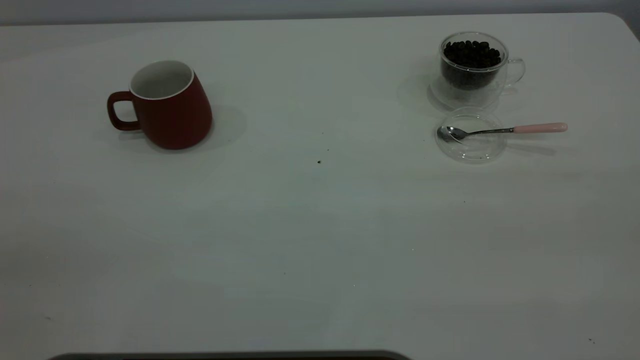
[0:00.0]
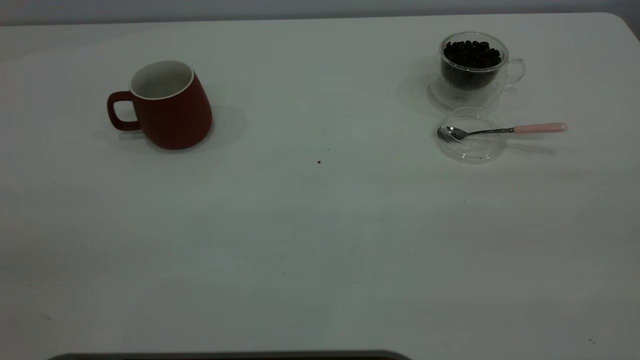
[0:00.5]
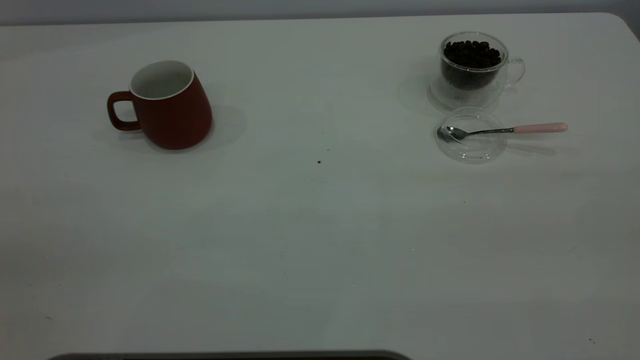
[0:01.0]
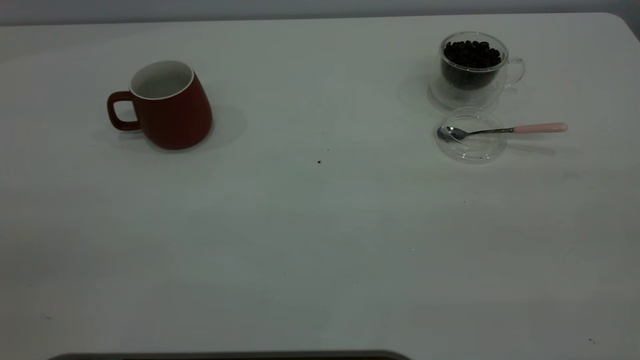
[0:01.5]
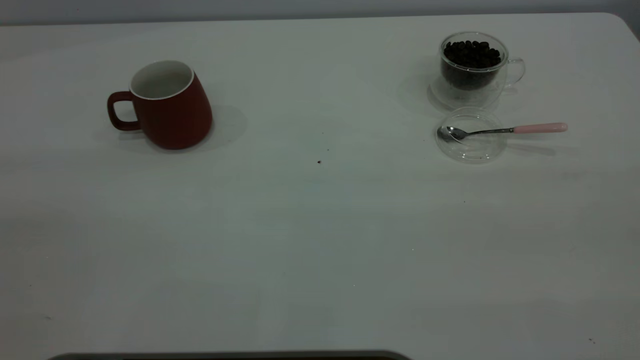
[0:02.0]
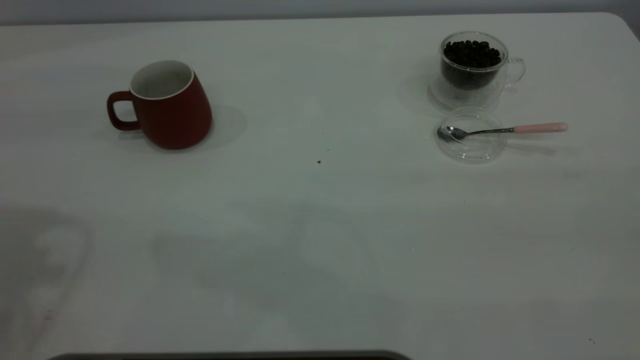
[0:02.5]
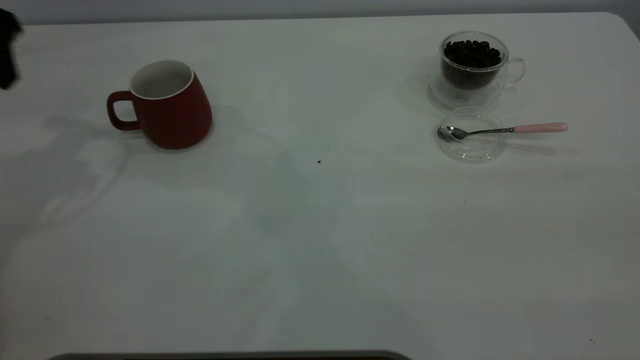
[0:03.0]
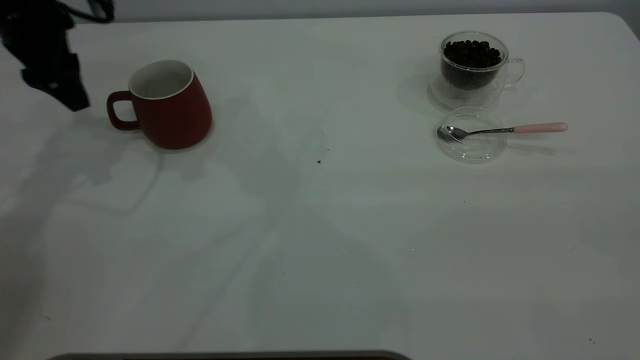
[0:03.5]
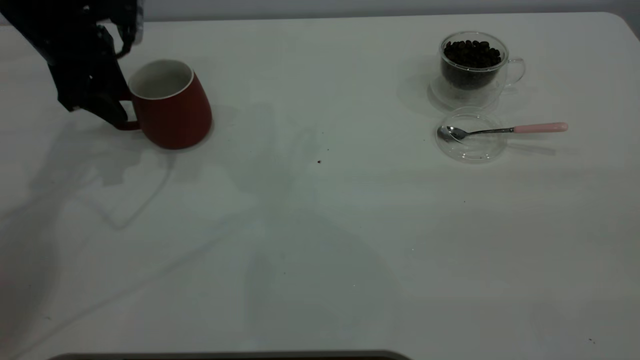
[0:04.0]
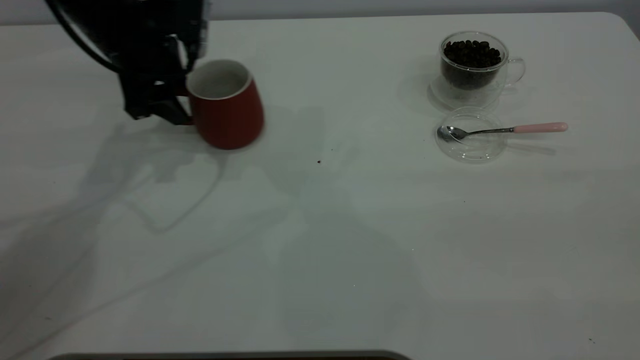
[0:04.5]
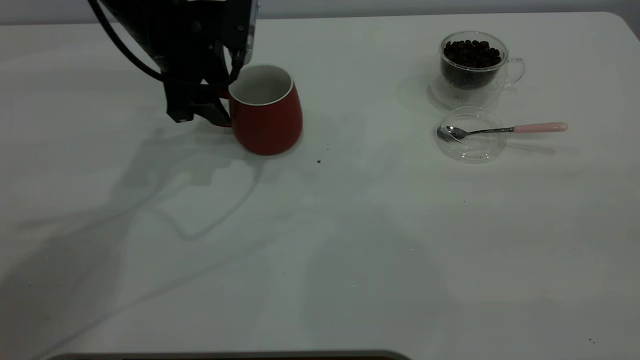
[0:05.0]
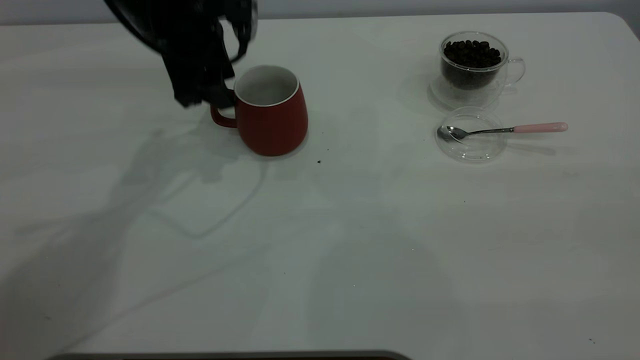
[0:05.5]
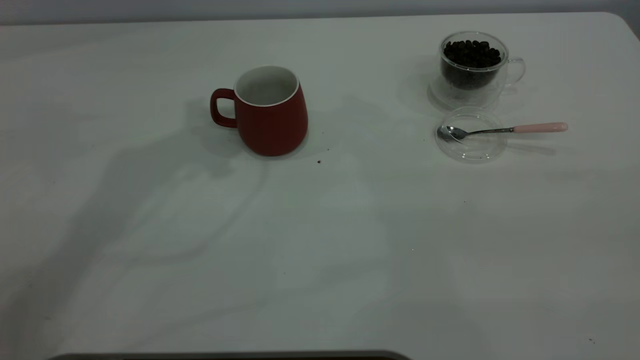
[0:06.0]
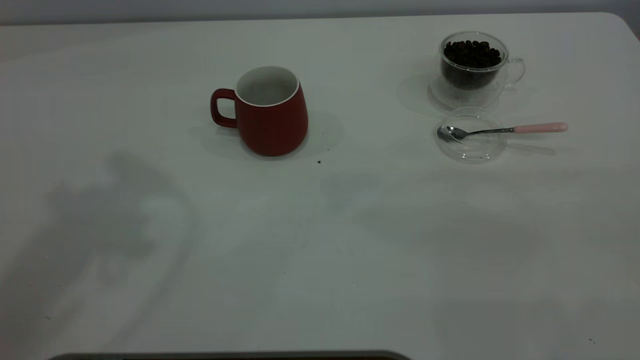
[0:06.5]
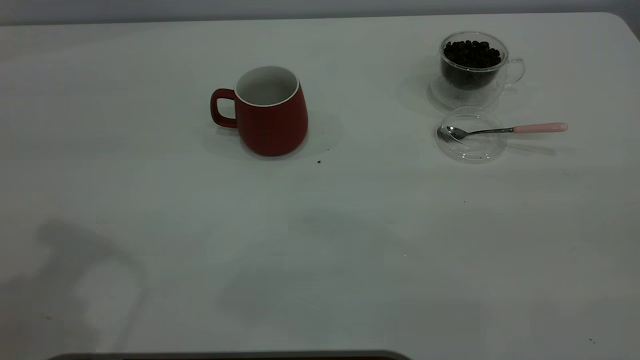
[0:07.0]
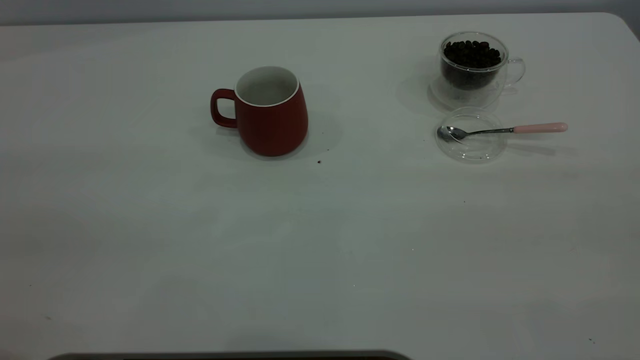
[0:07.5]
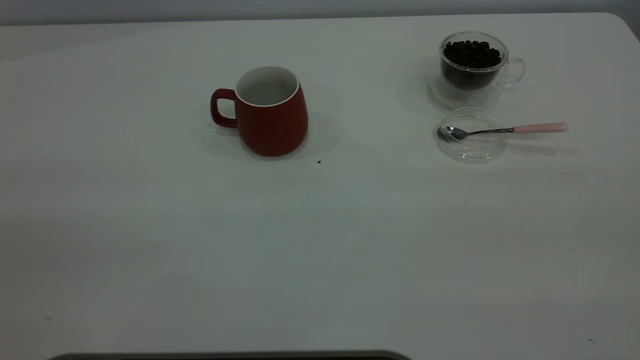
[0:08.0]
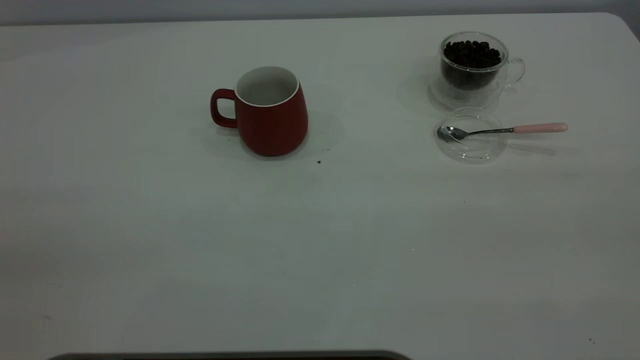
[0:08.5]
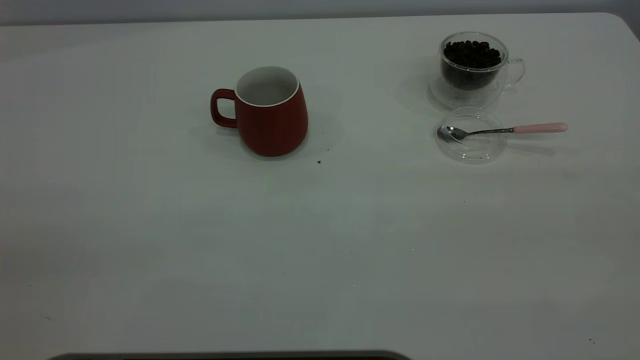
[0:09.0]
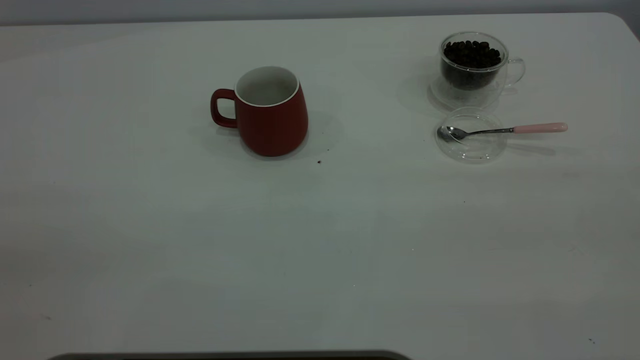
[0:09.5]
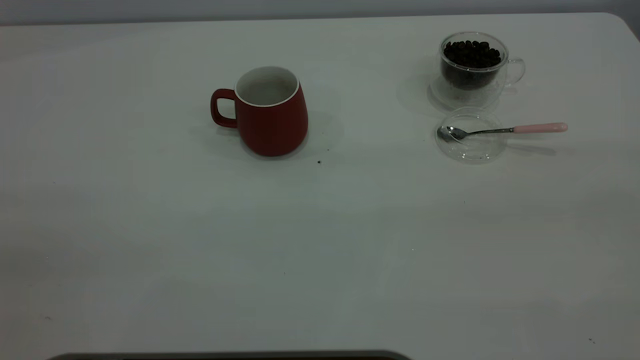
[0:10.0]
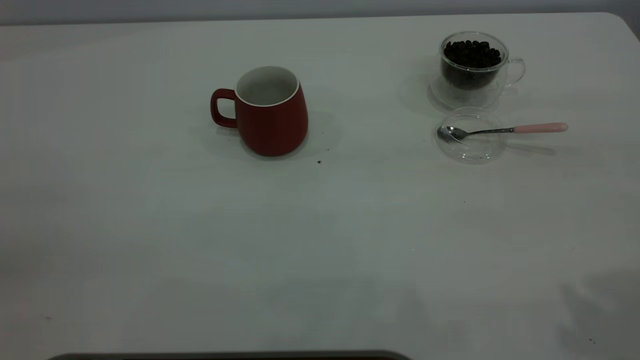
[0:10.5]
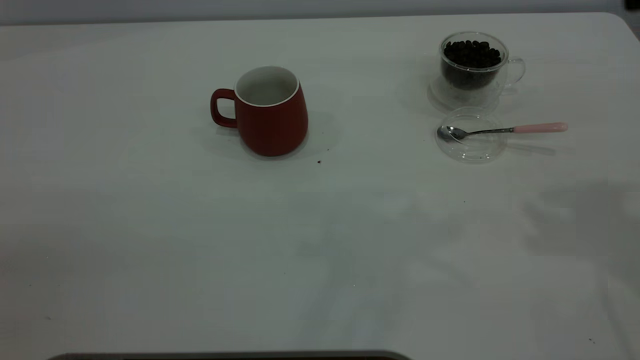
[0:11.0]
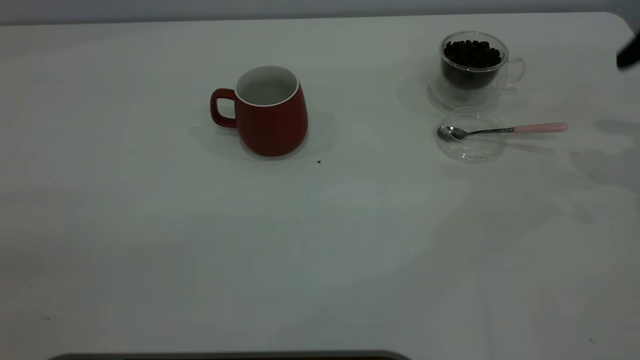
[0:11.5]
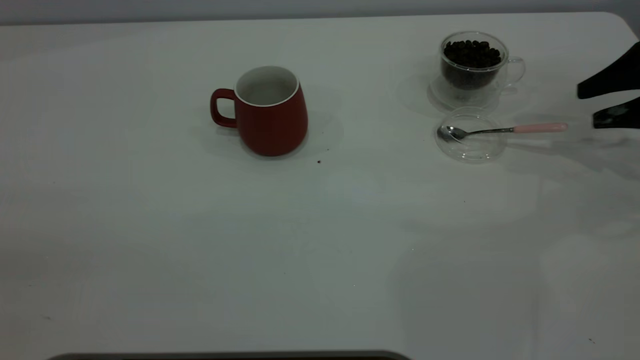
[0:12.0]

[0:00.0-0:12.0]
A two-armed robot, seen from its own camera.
Task of the whole recording: the left gripper place the red cup in the center of the table, the right gripper take the pink spoon from the cup lid and scoop out the coffee beans from the coffee cup and put them into the red cup, the right gripper put the spoon back into the cup lid.
Step, 0:00.0 to 0:05.5: Move the cup to the center of view.
0:02.0 to 0:04.0: The left gripper is displaced forward and downward by some 50 cm.
0:04.0 to 0:06.0: The left gripper is displaced upward and to the right by some 20 cm.
0:10.0 to 0:12.0: The right gripper shifts some 40 cm forward and downward.

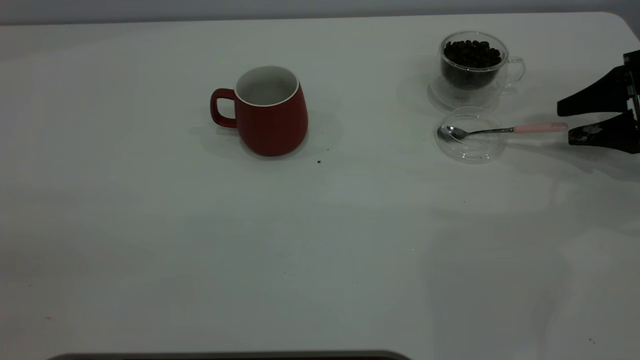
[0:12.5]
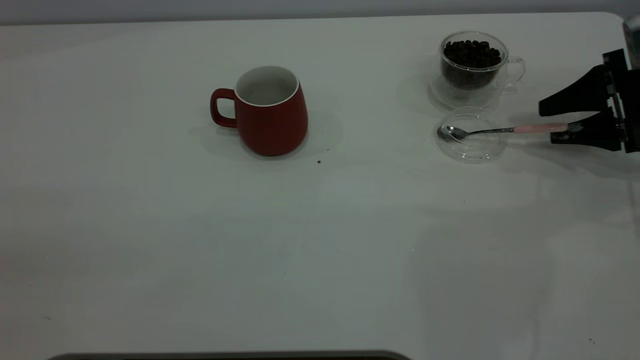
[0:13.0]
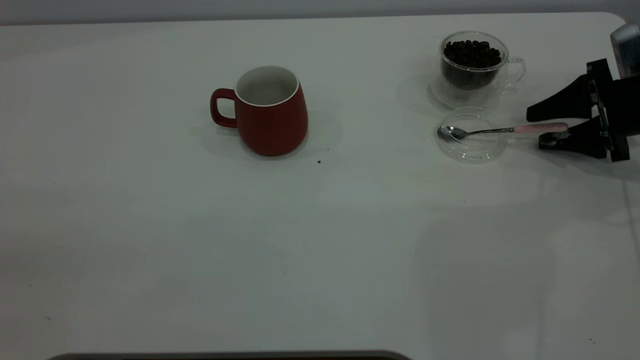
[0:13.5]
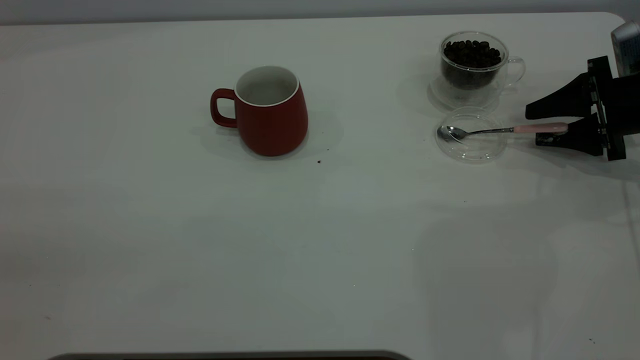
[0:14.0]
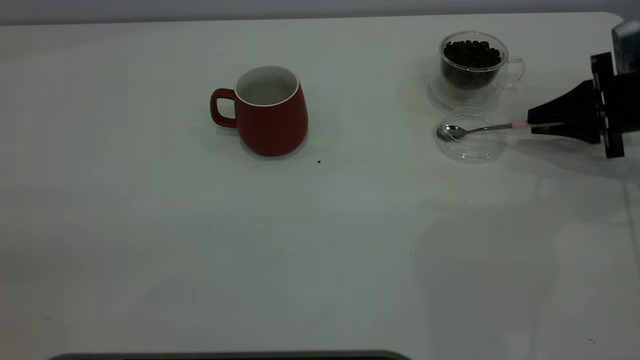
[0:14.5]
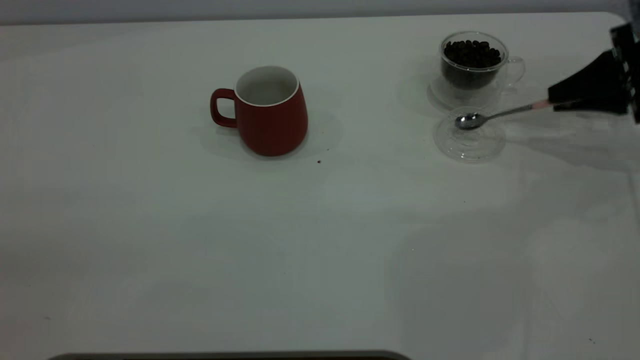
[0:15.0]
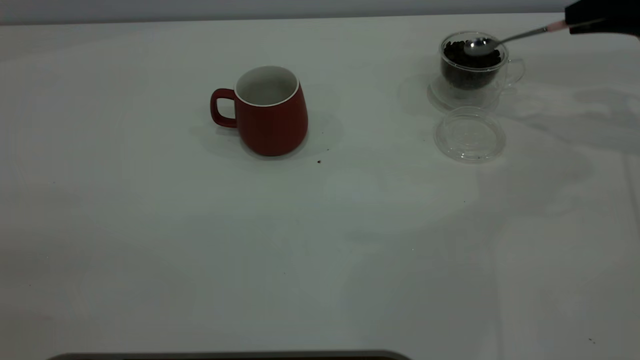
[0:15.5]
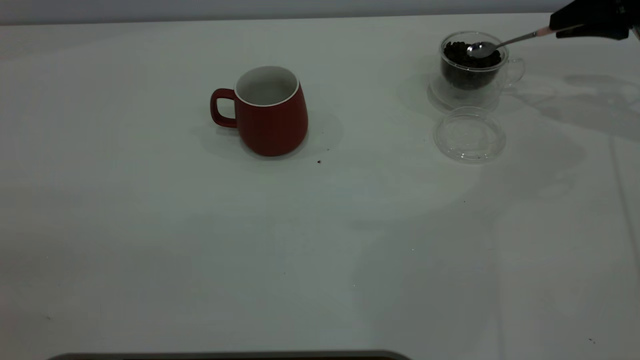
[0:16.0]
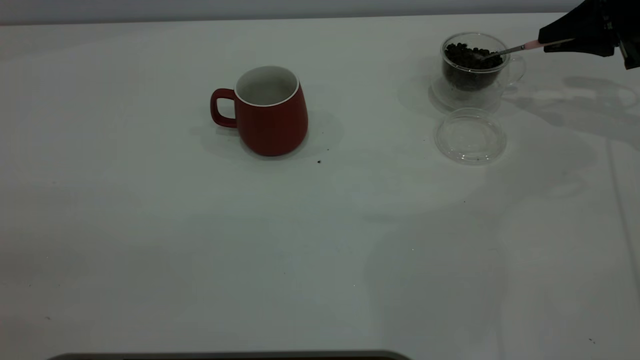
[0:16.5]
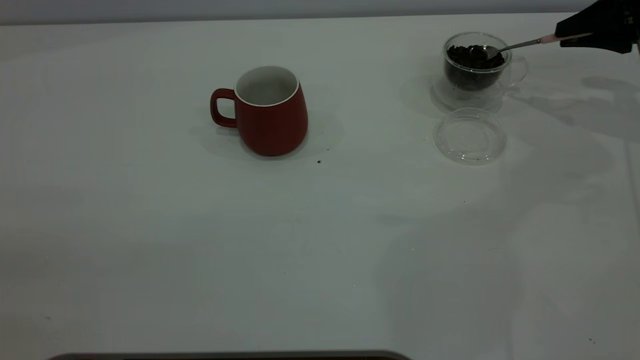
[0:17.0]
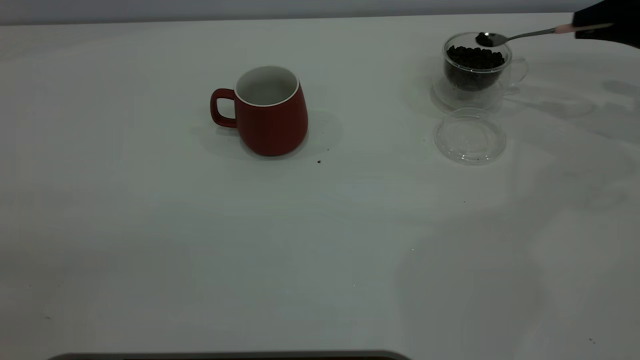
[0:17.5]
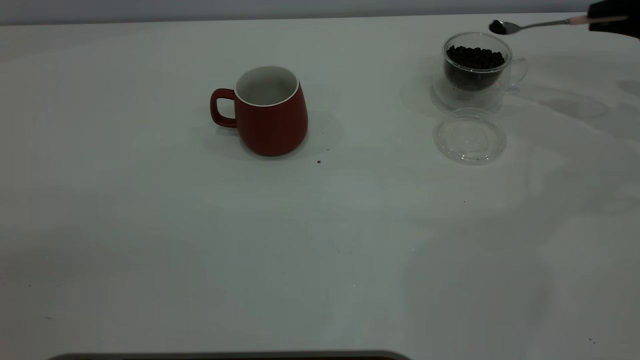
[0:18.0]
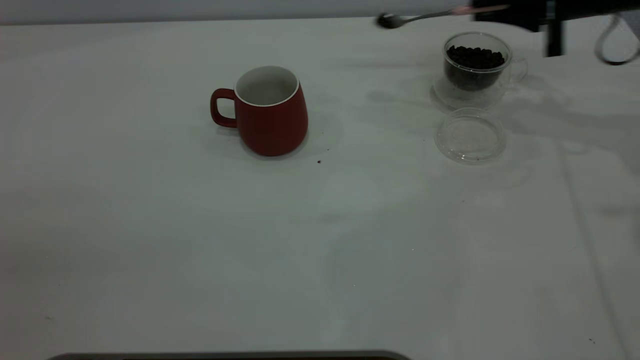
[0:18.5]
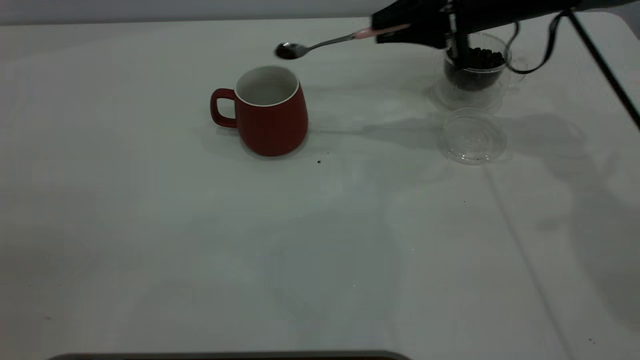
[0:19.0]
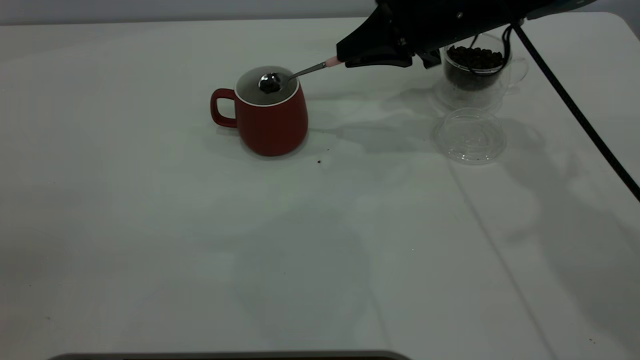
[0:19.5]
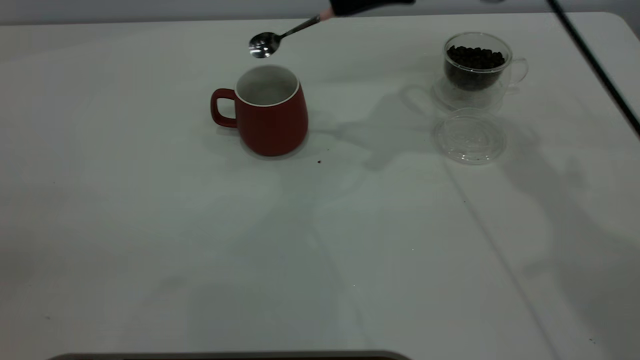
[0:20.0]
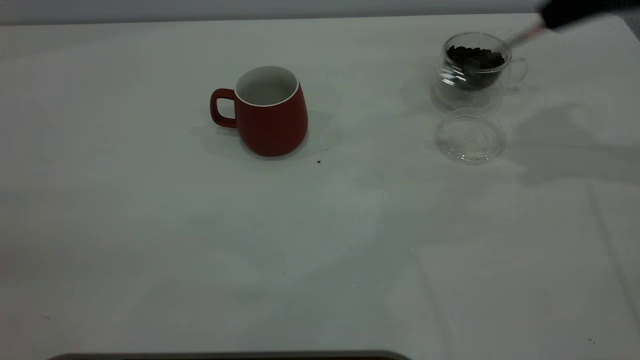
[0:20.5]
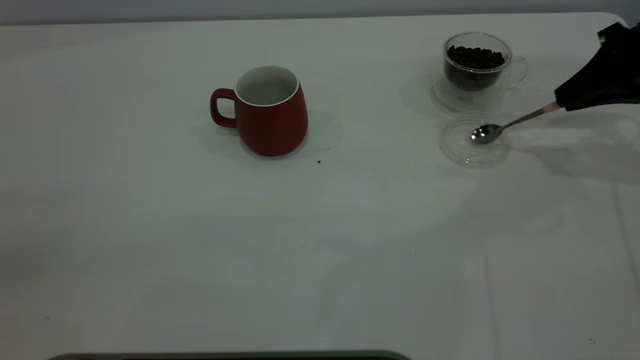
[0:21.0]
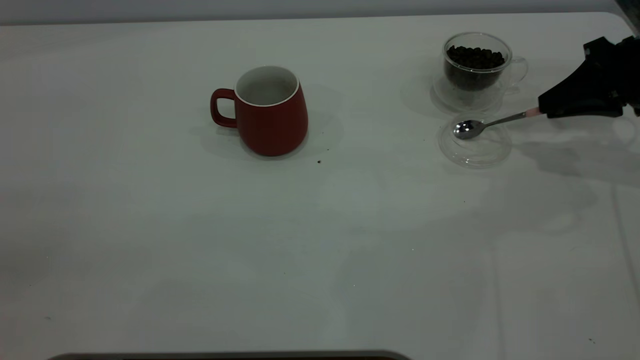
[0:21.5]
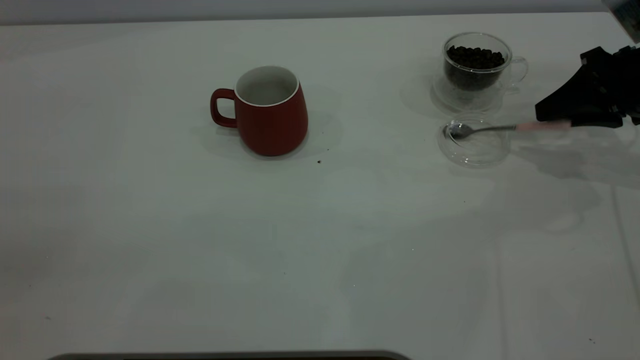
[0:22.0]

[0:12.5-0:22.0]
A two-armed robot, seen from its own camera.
Task of the whole recording: the left gripper place the red cup in the center of the table, the right gripper take the pink spoon from the cup lid and scoop out the coffee beans from the coffee cup and put them into the red cup, the right gripper put the spoon back into the cup lid.
Step, 0:12.5 to 0:15.0: Pick up the spoon.
Step, 0:15.5 to 0:19.5: Scoop a spoonful of beans into the cup.
0:12.5 to 0:14.5: The right gripper closes its fingers.
0:14.5 to 0:16.5: The right gripper shifts approximately 10 cm upward and forward.
0:16.5 to 0:18.0: There are only small adjustments of the grippers.
0:18.0 to 0:20.0: The right gripper shifts about 30 cm to the left.
0:20.0 to 0:22.0: The right gripper goes approximately 25 cm to the right and downward, and opens its fingers.
